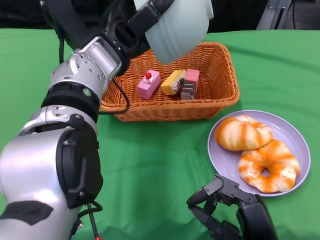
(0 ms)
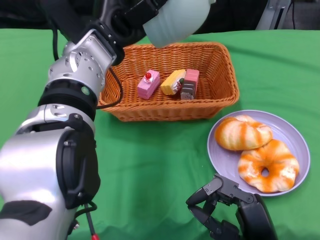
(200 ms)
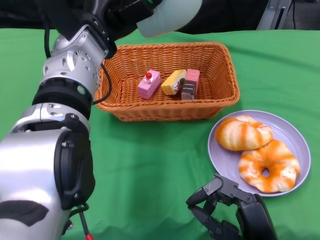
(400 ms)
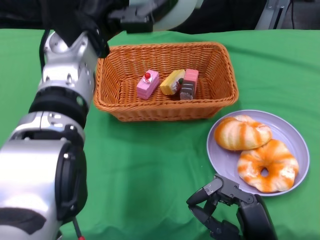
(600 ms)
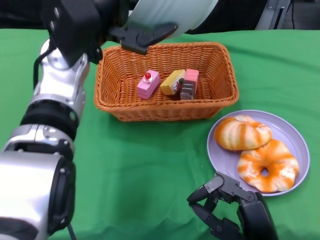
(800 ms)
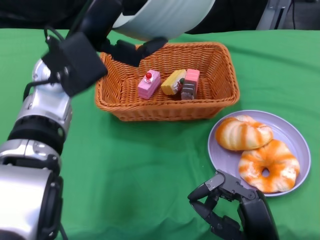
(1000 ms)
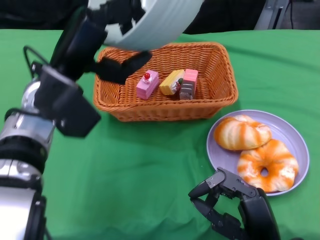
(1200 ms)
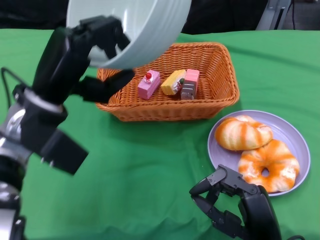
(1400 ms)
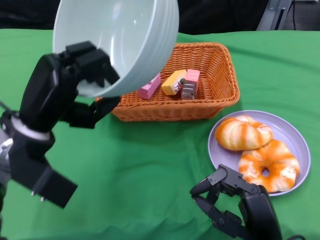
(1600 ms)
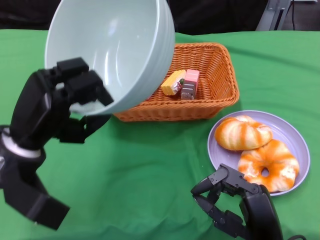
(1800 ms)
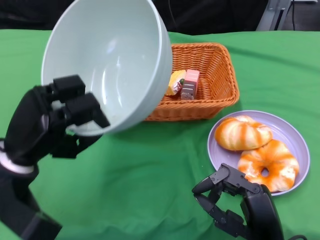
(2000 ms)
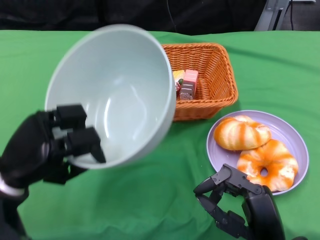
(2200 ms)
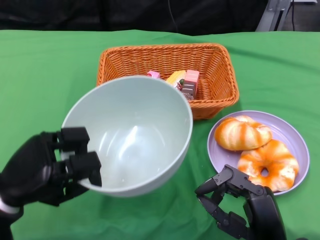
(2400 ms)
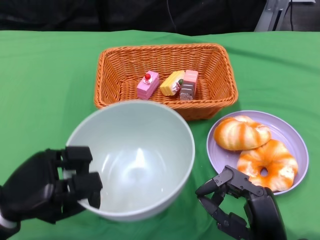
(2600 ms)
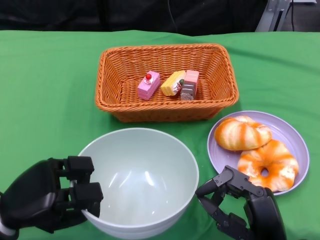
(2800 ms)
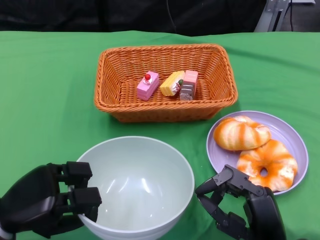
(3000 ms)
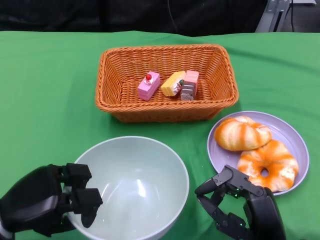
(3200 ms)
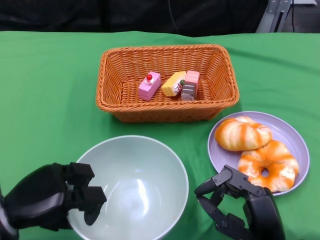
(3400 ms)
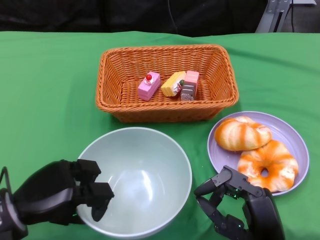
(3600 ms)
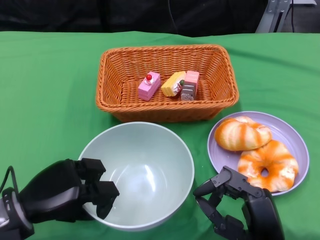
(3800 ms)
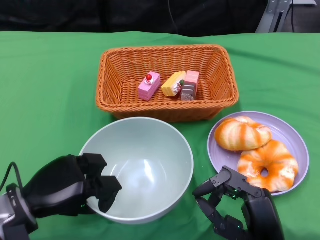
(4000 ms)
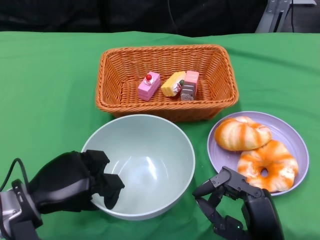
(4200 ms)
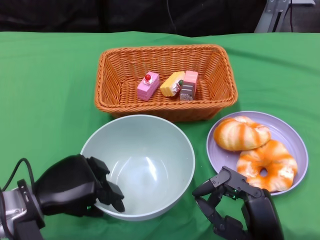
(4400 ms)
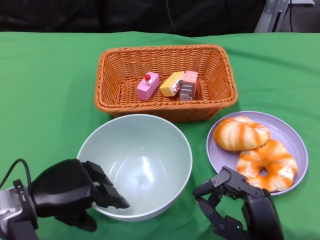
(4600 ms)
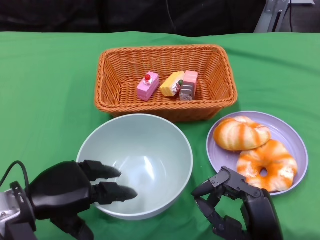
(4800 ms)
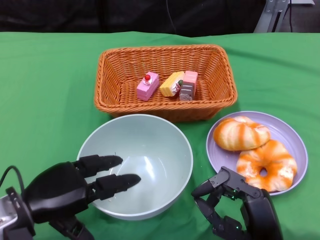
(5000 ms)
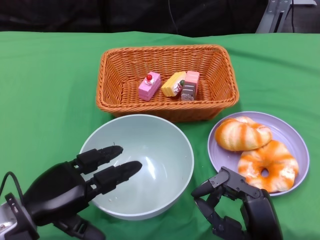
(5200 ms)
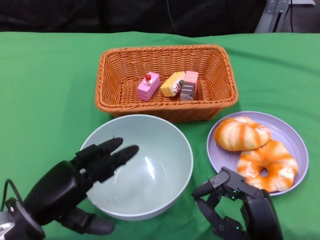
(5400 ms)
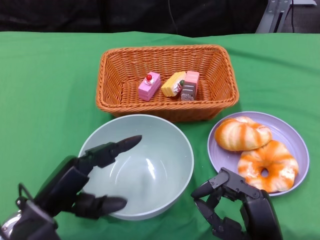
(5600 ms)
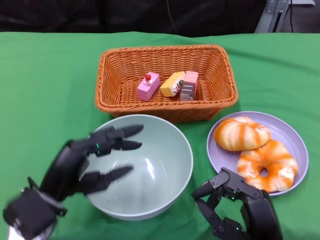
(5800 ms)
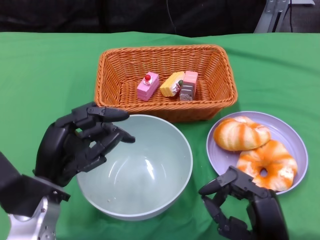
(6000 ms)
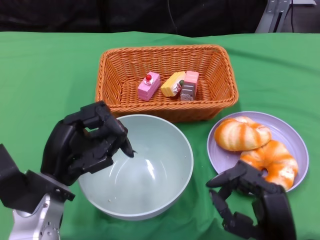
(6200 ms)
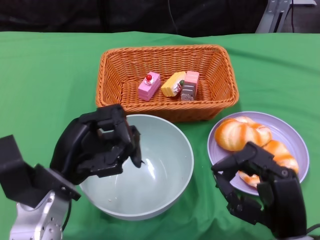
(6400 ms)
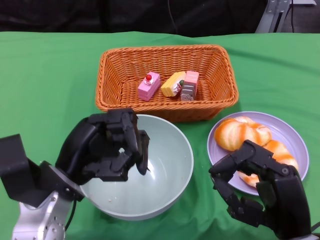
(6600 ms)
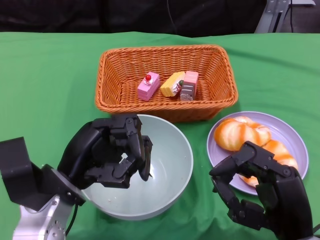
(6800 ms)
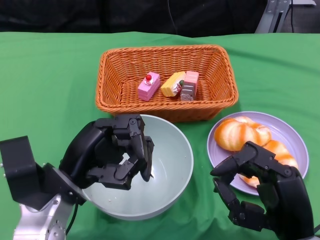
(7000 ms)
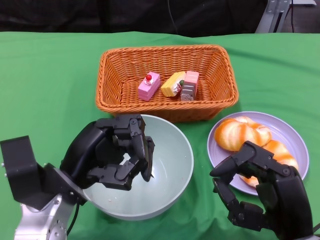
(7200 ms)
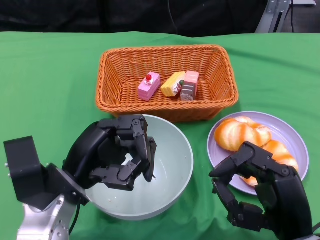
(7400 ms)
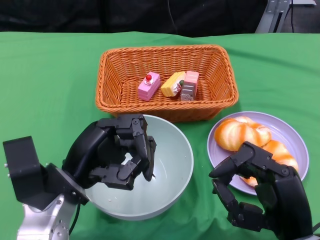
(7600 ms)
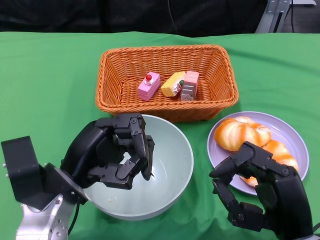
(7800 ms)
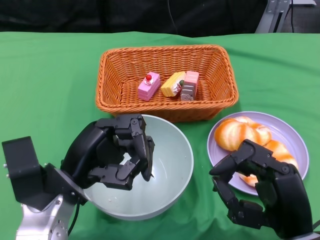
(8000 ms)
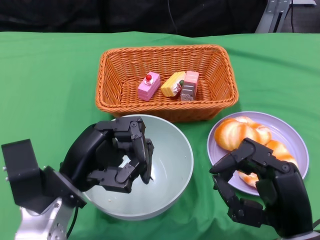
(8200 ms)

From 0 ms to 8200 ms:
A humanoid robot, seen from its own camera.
Step, from 0 ms to 5000 ms: Place the bowl on the table with the left gripper.
From 0 ms to 1600 ms: The left hand heads to the left, backward and downward, covering roughly 15 cm.
From 1600 ms to 3200 ms: The left hand is displaced downward, backward and to the left by about 15 cm.
From 5000 ms to 6600 ms: The left hand is displaced to the right by roughly 5 cm. The right hand shifts by some 5 cm.
From 6600 ms to 8200 ms: Both hands stay put.
